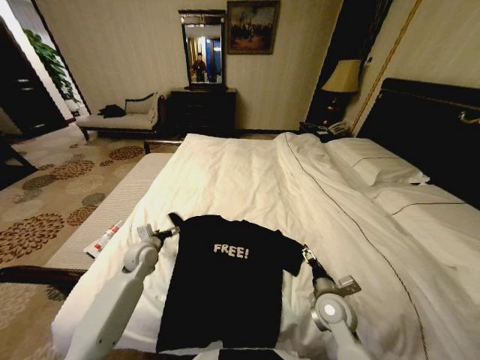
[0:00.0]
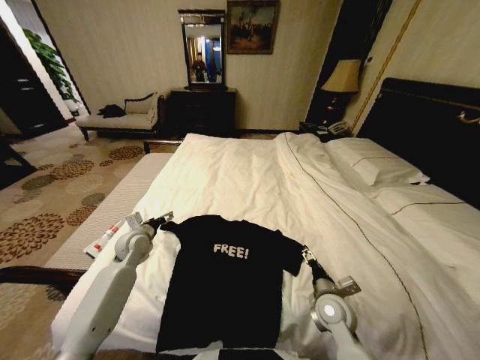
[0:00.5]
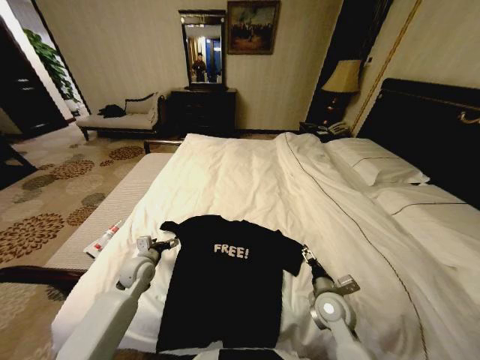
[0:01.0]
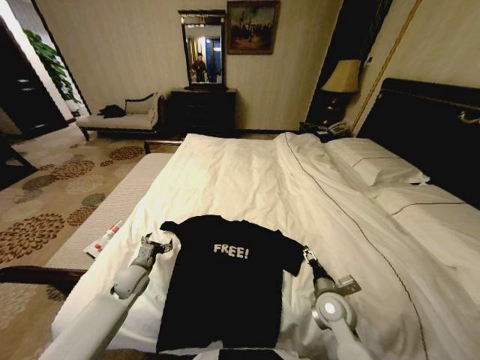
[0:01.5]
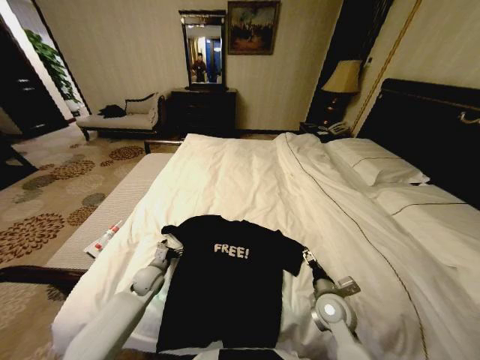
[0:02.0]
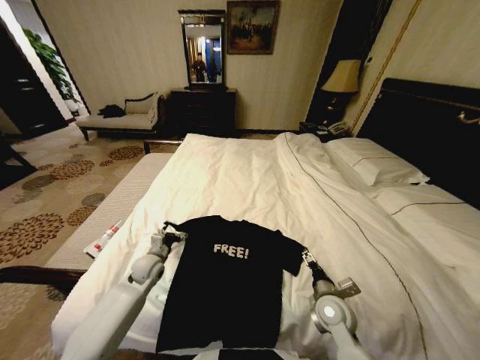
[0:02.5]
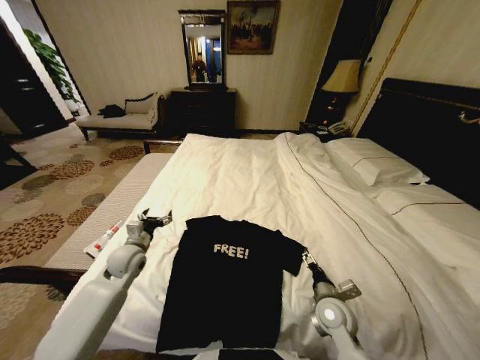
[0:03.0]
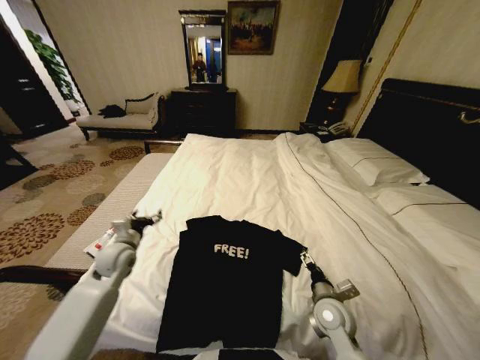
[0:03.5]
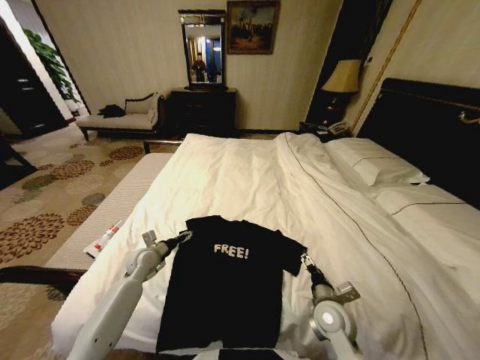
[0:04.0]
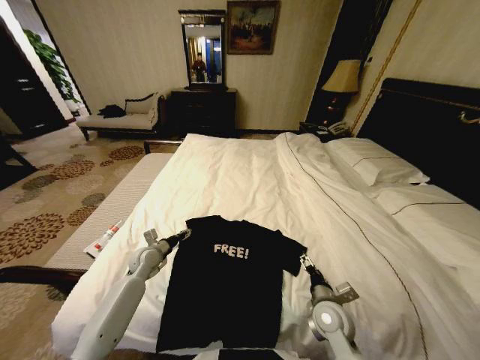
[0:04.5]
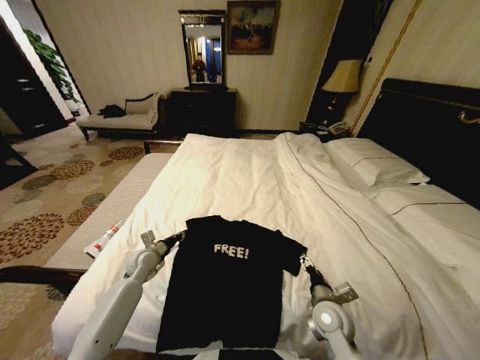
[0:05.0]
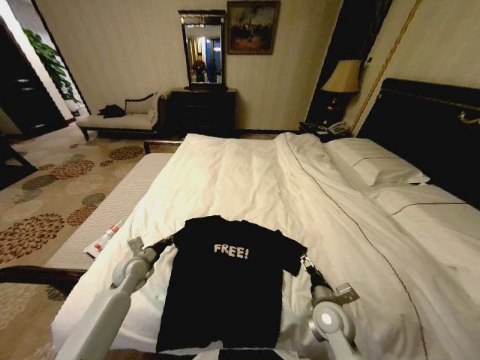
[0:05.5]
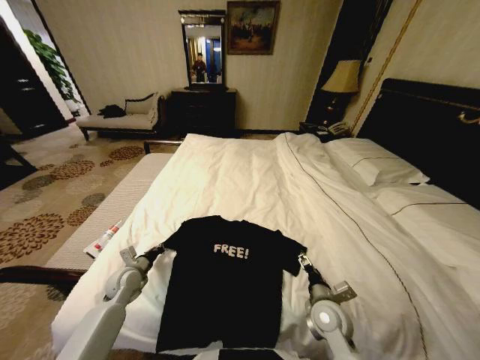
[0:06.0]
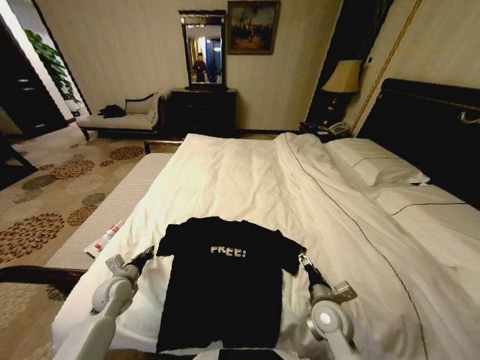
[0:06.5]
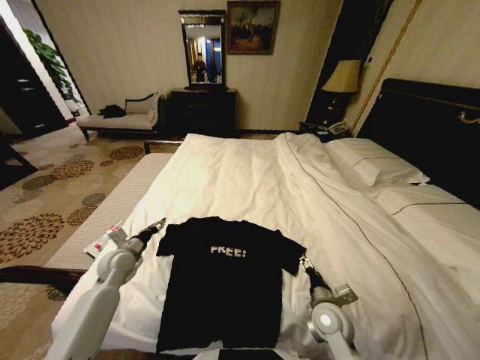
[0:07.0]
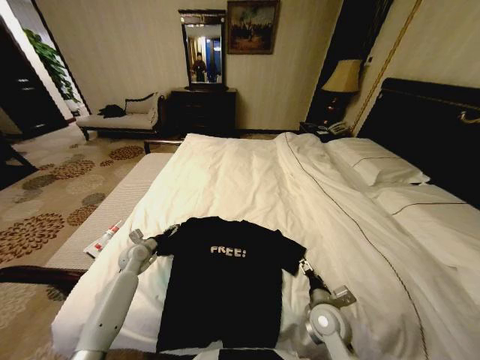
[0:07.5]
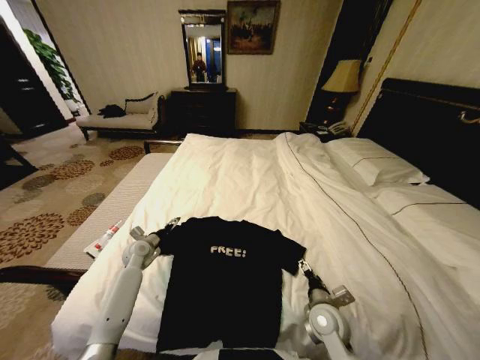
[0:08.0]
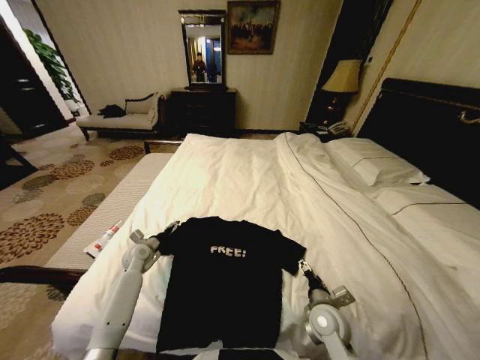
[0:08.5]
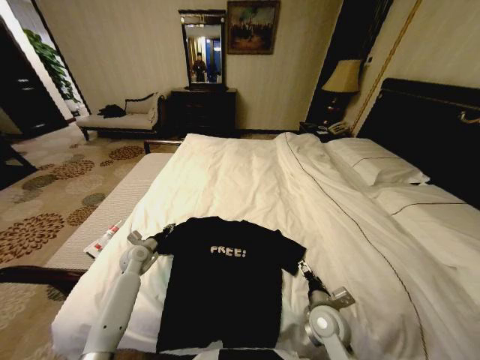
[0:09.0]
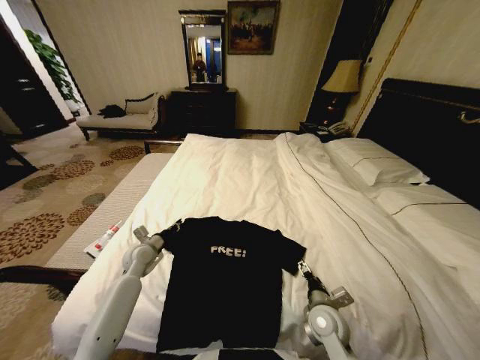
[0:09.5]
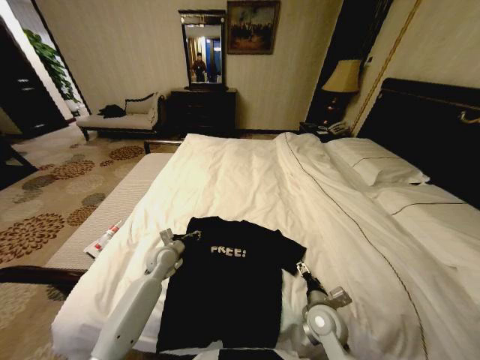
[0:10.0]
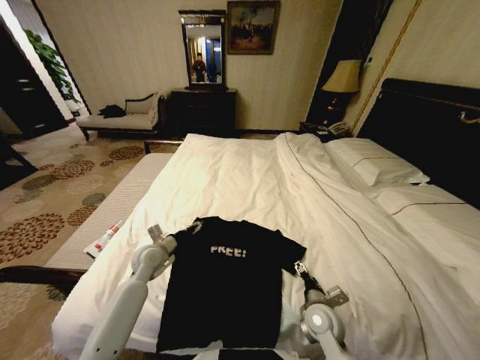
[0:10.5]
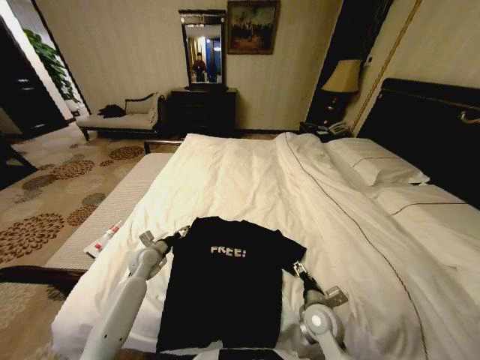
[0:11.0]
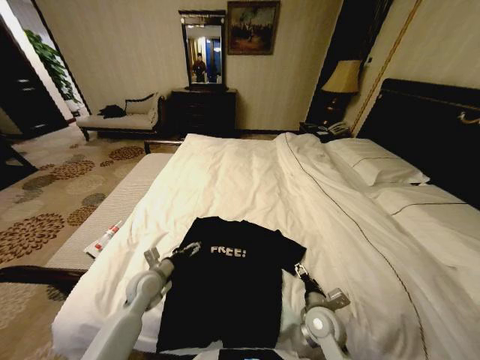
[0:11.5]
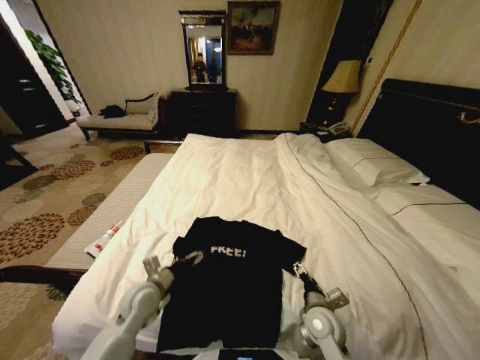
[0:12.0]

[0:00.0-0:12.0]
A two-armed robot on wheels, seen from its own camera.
Task of the whole recording: Fold the clothes on the bed.
0:00.0 to 0:02.0: The left gripper goes about 10 cm downward.
0:02.0 to 0:04.0: The left gripper moves upward, approximately 5 cm.
0:04.0 to 0:06.0: The left gripper moves backward, roughly 5 cm, and closes its fingers.
0:06.0 to 0:08.0: The left gripper is displaced forward by some 10 cm, and opens.
0:08.0 to 0:10.0: The left gripper goes about 10 cm to the right, and closes up.
0:10.0 to 0:12.0: The left gripper heads backward, covering some 15 cm, and opens up.

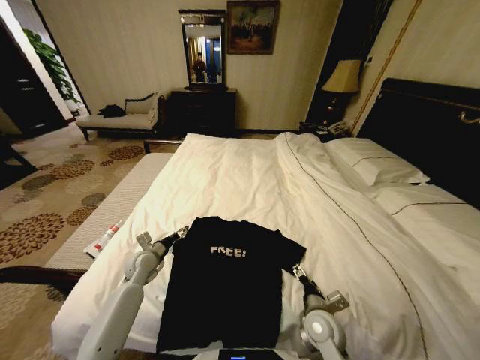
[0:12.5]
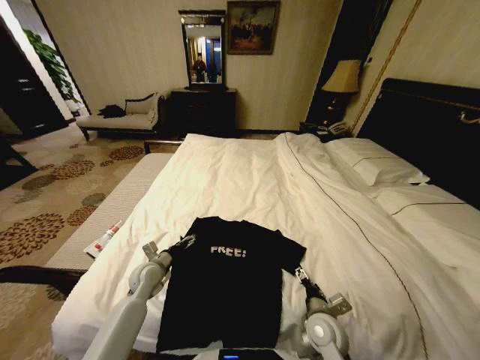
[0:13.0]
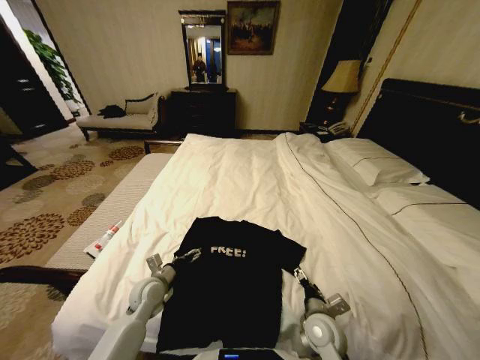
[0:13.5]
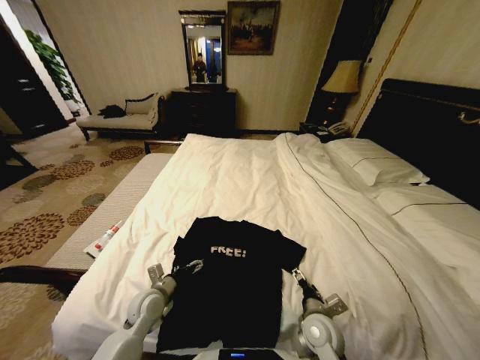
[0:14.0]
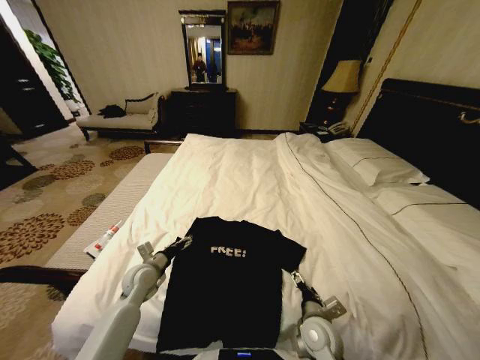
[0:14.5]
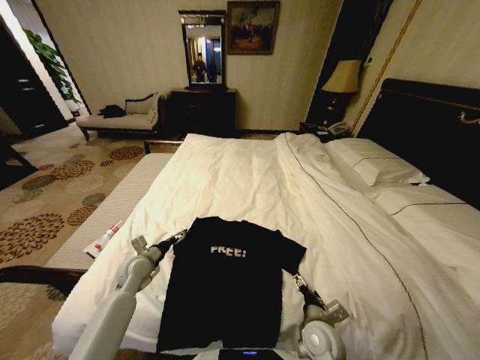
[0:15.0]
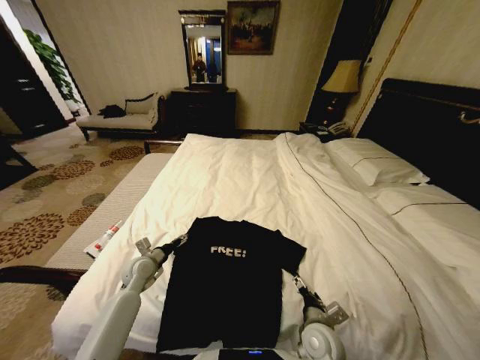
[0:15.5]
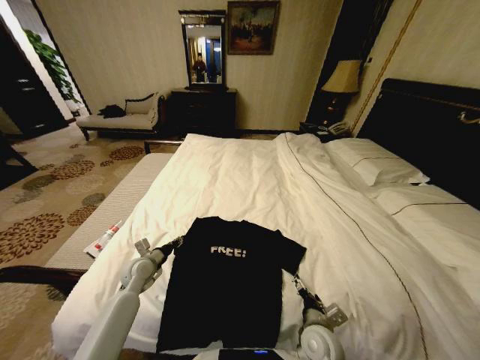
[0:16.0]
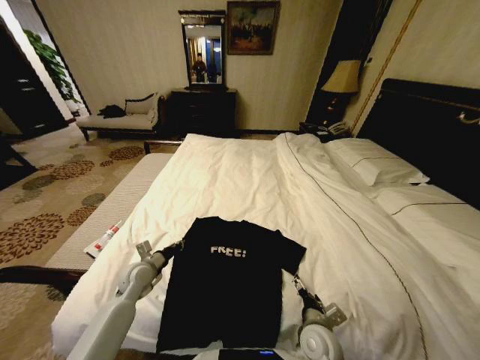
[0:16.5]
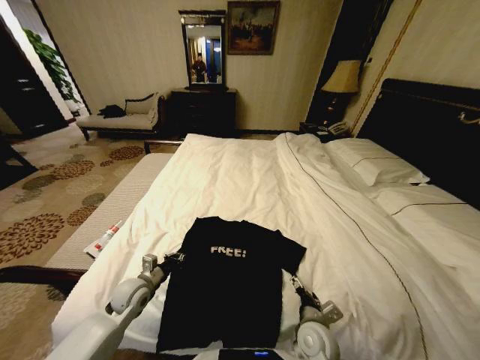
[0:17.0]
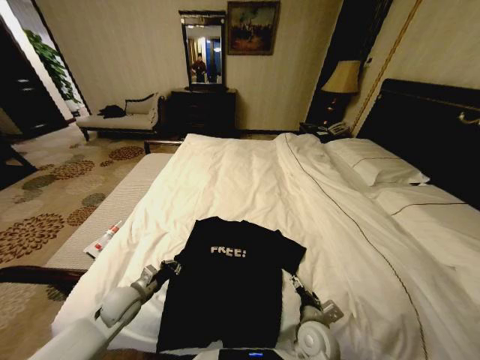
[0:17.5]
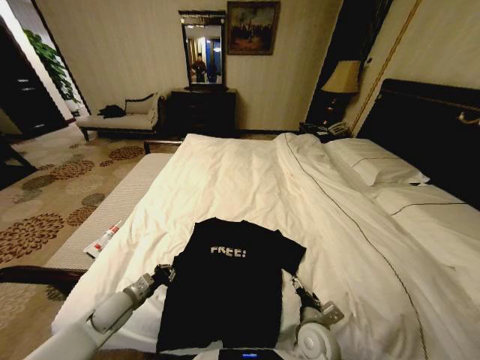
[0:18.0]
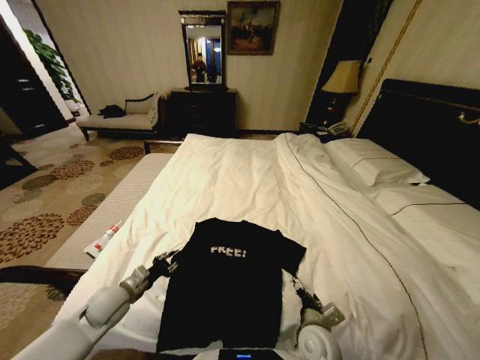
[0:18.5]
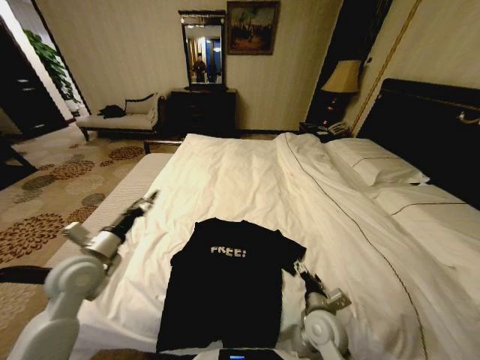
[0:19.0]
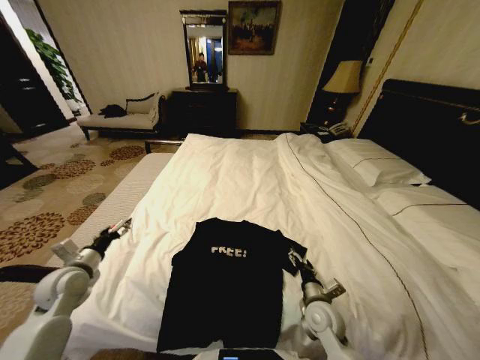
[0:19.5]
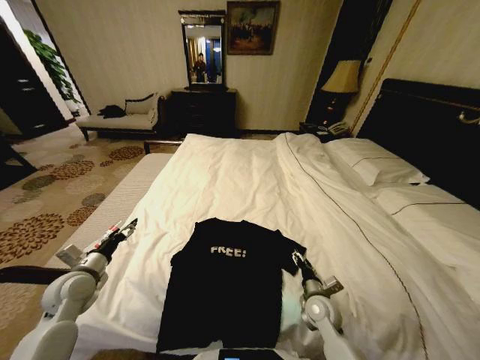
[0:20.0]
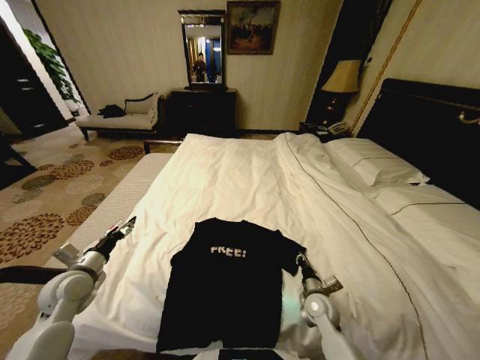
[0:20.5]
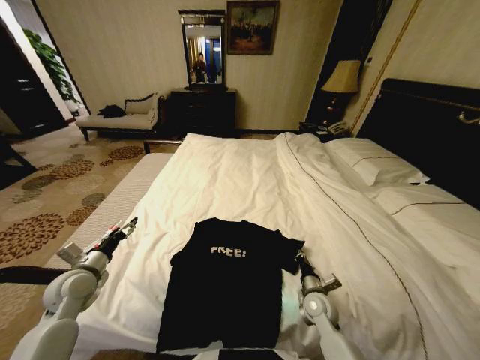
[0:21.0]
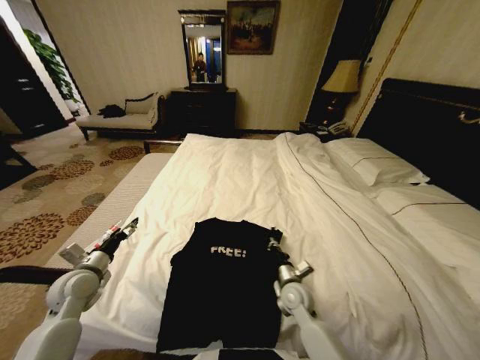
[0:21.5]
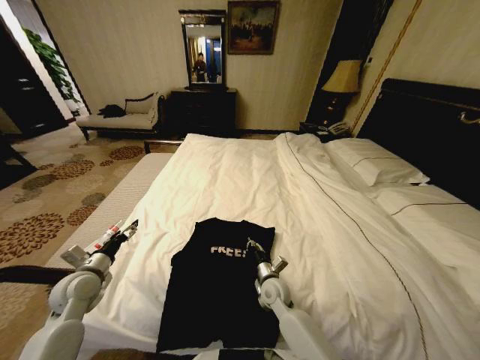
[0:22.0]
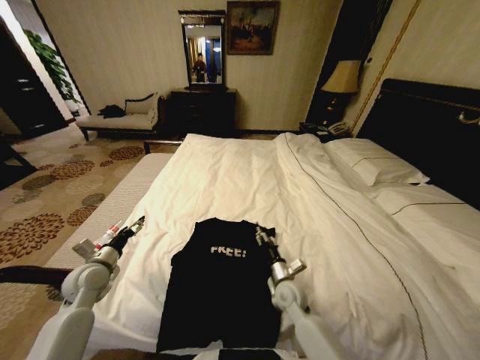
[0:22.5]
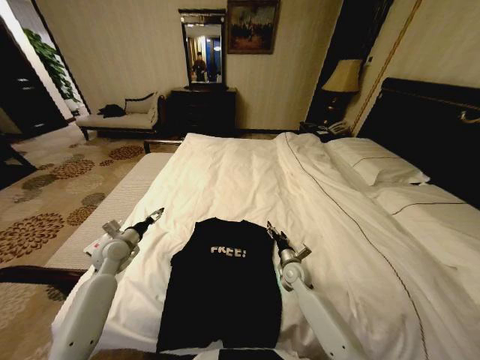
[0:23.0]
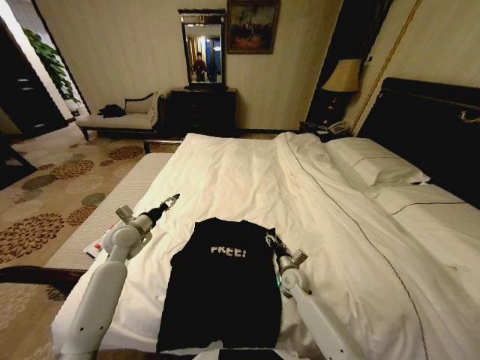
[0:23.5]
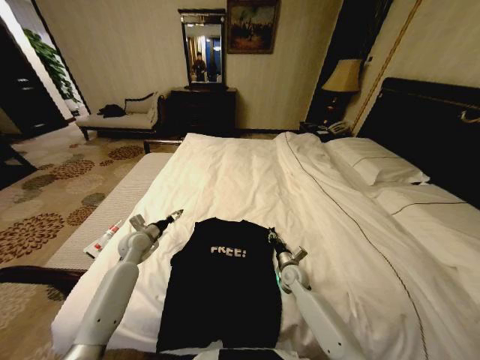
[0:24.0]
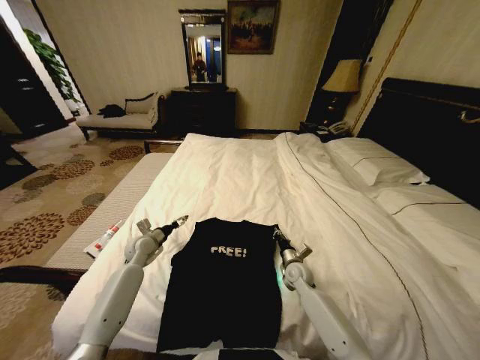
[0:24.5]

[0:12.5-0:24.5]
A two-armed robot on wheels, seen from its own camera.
Task of the whole recording: Fold the clothes on the bed.
0:12.5 to 0:14.5: The left gripper goes roughly 5 cm backward.
0:14.5 to 0:16.5: The left gripper closes its fingers.
0:16.5 to 0:18.5: The left gripper heads backward, covering about 10 cm.
0:18.5 to 0:20.5: The left gripper travels to the left and upward by roughly 10 cm, and opens up, while the right gripper goes some 10 cm forward and to the right, and closes.
0:20.5 to 0:22.5: The right gripper shifts approximately 10 cm to the left.
0:22.5 to 0:24.5: Both grippers move forward and to the right, about 15 cm. The right gripper closes.

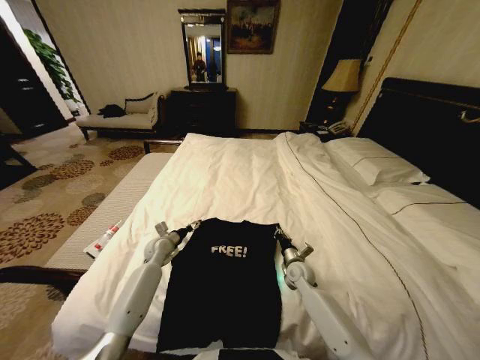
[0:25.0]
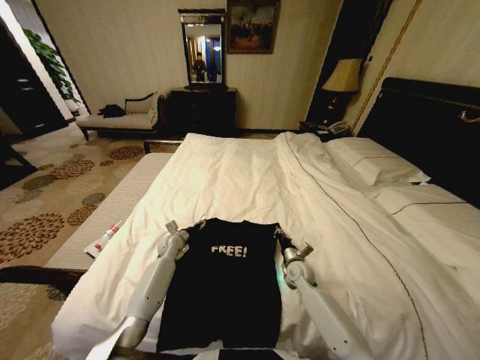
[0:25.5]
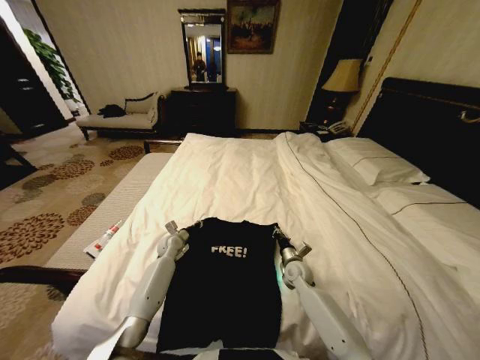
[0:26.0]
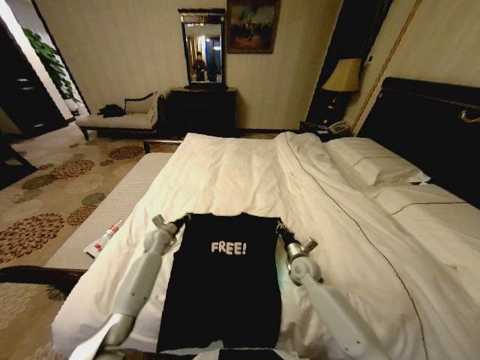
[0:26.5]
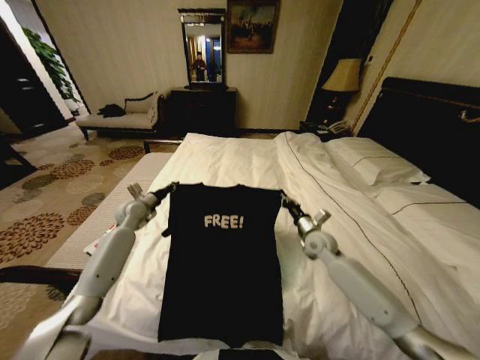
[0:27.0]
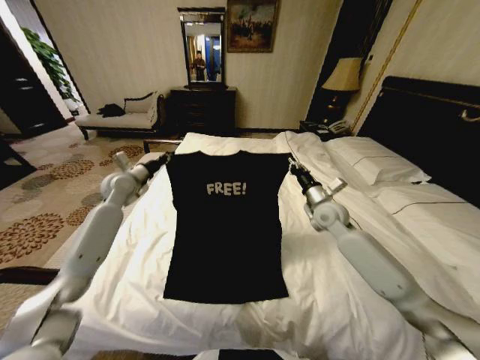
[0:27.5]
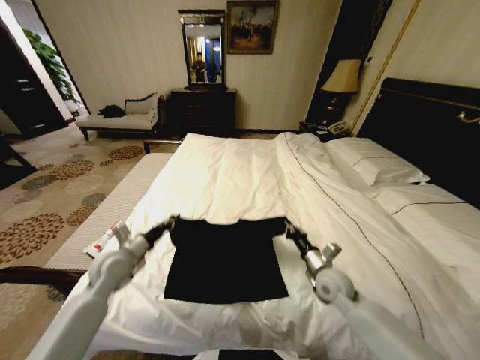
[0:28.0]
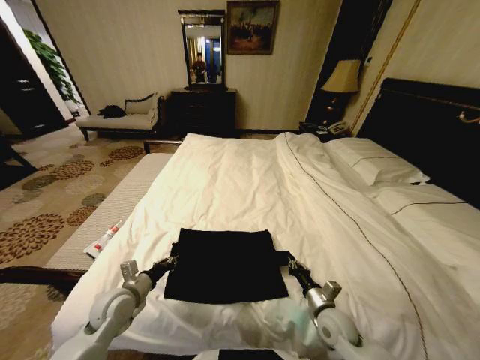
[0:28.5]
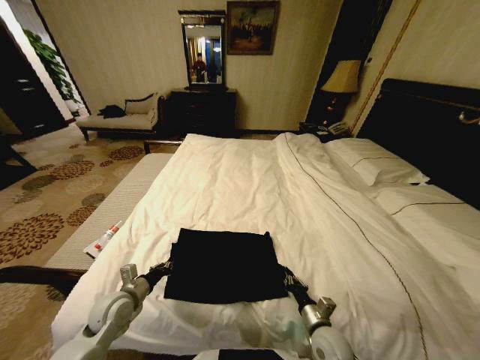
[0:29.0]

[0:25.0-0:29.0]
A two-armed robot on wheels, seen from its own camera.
Task of the whole recording: Fold the clothes on the bed.
0:25.0 to 0:27.0: The left gripper heads upward, to the left and forward, covering about 15 cm, and closes up. Meanwhile the right gripper shifts some 15 cm upward.
0:27.0 to 0:29.0: The left gripper moves backward, roughly 25 cm. Meanwhile the right gripper heads backward and downward, covering about 30 cm.
